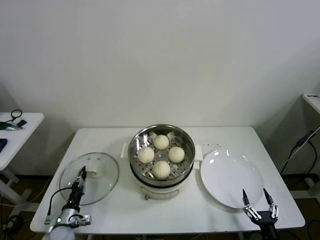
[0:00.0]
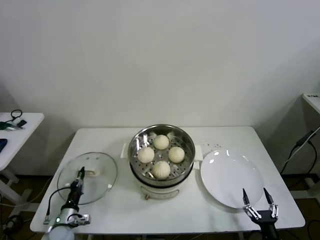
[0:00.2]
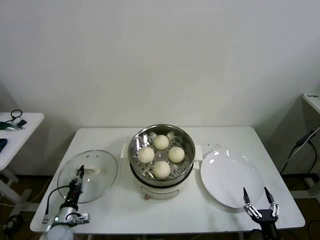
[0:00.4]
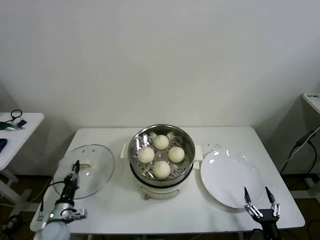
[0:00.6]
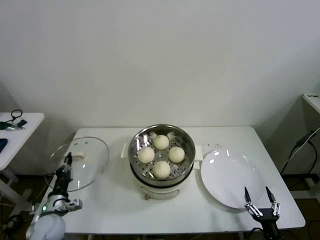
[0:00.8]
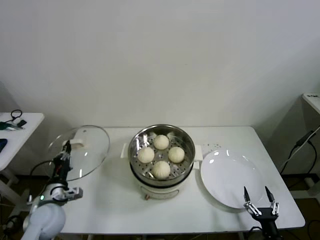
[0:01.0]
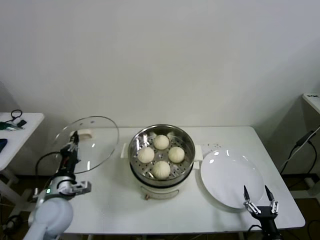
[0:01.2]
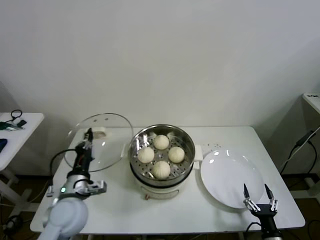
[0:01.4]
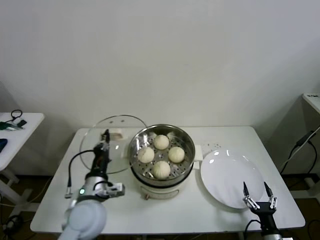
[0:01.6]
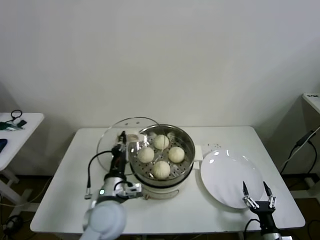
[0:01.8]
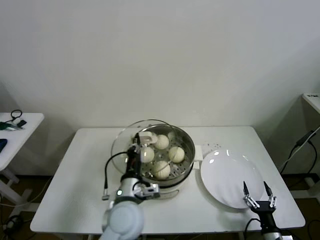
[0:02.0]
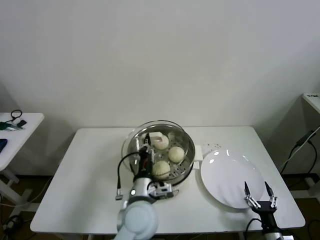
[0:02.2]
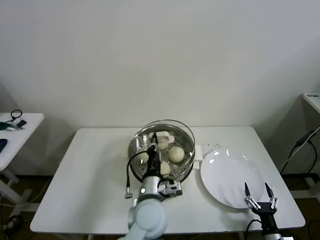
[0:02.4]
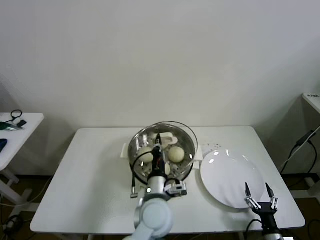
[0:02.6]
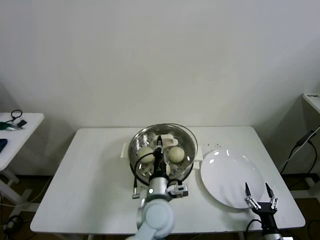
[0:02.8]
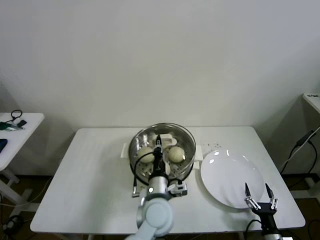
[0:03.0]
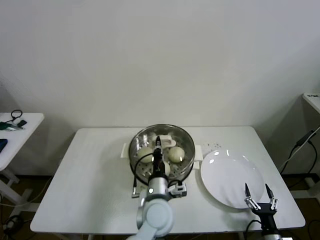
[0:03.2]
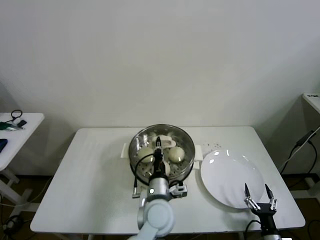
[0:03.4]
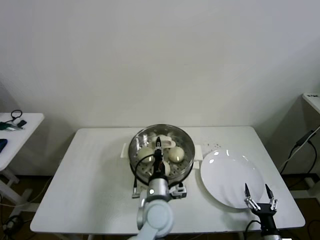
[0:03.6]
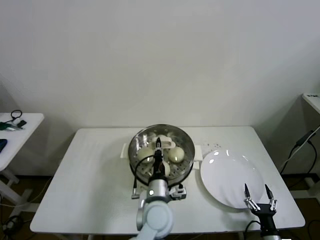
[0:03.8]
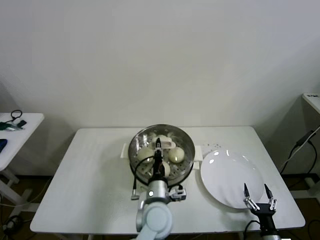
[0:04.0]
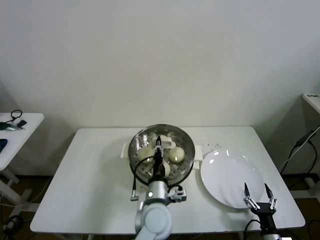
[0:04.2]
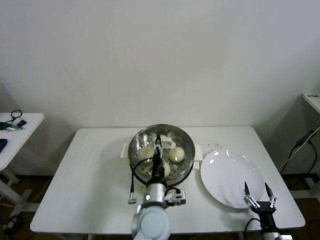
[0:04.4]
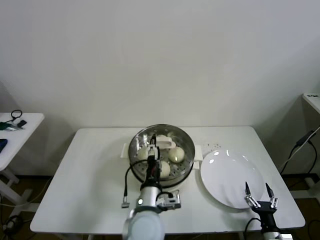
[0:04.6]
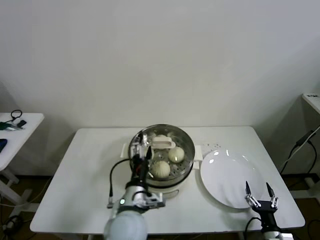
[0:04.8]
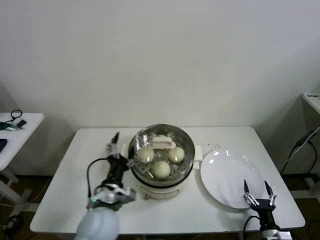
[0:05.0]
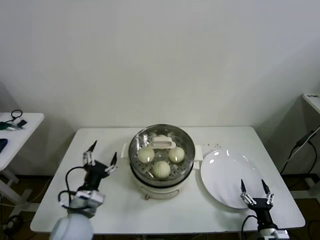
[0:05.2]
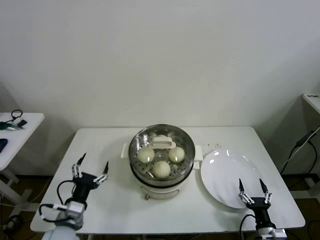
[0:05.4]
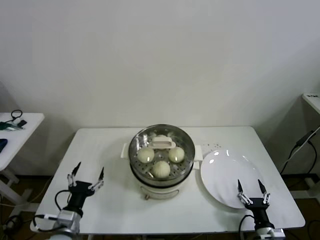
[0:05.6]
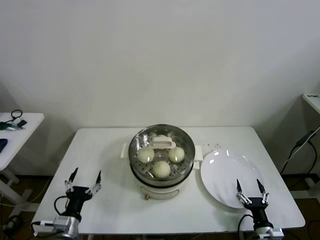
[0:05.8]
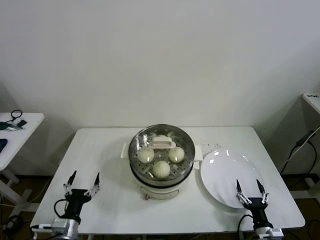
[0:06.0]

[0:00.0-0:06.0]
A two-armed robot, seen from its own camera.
Task of the whole recording: take steamed baozi put them in steamer then cover it.
Step, 0:00.4 to 0:04.6: Place the pot lid on the steamer with left gripper.
0:00.0 to 0:01.6: The left gripper is displaced upward and to the right by some 30 cm.
0:01.6 to 0:03.0: The left gripper shifts approximately 20 cm to the right.
0:03.0 to 0:04.4: The left gripper opens.
0:04.4 to 0:06.0: The left gripper shifts about 30 cm to the left, and opens up.
